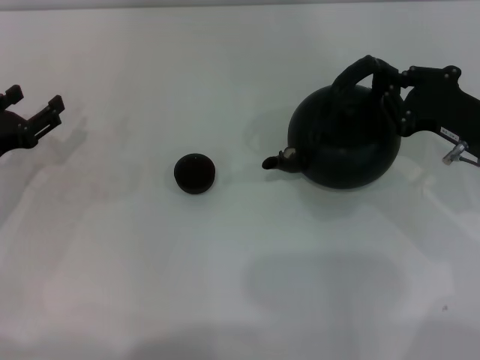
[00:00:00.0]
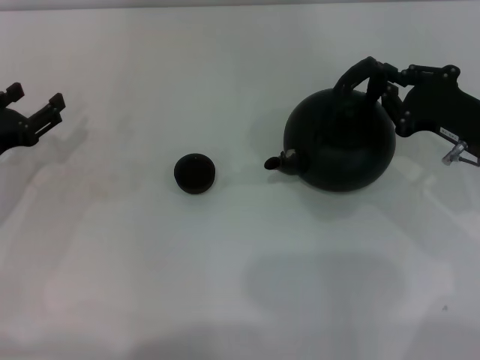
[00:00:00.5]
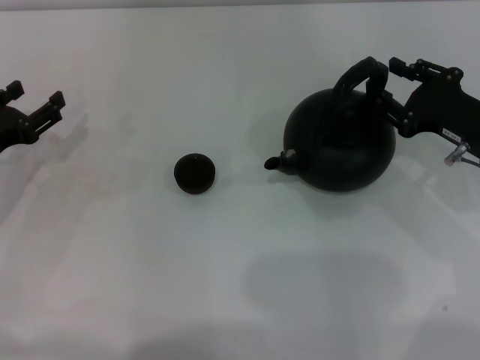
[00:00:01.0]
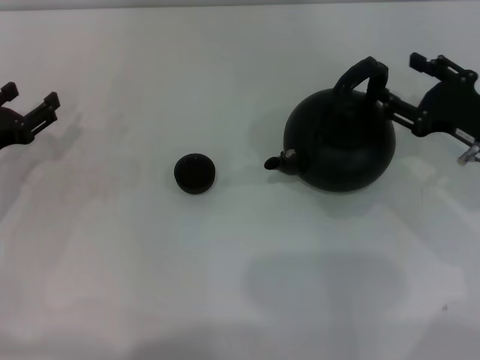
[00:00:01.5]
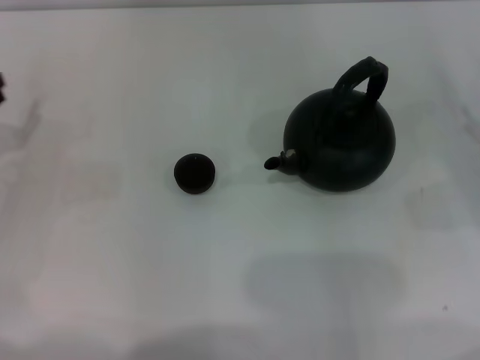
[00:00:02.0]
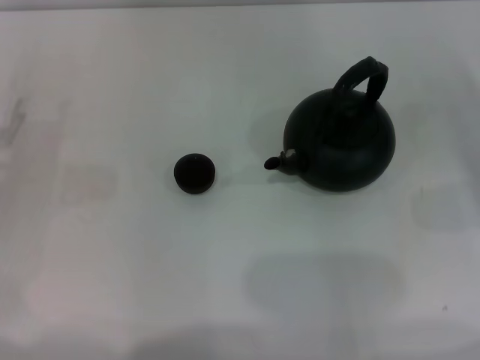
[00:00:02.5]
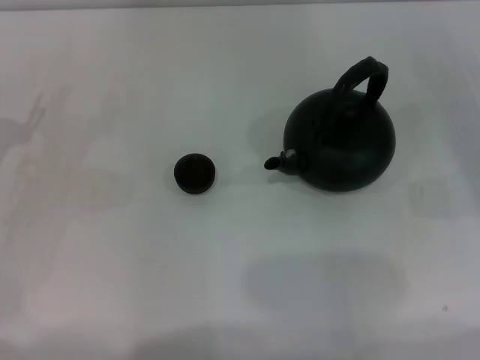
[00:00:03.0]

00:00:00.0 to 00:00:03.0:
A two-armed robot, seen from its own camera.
Task of the whole recording: Grasp the handle of the teapot with one hand and pour tea into the teacup.
00:00:00.0 to 00:00:01.5: The right gripper opens its fingers.
00:00:01.5 to 00:00:03.0: The right gripper shifts some 10 cm to the right.
